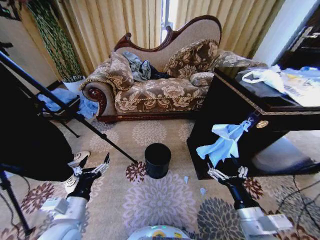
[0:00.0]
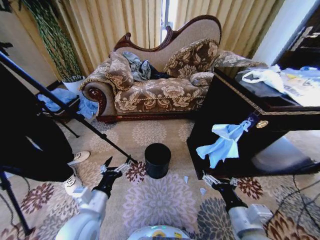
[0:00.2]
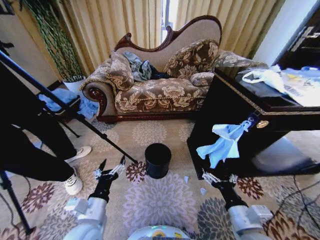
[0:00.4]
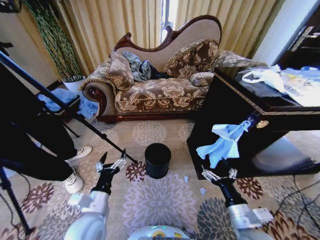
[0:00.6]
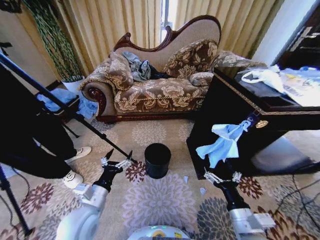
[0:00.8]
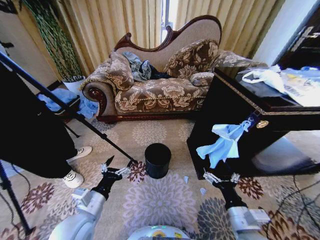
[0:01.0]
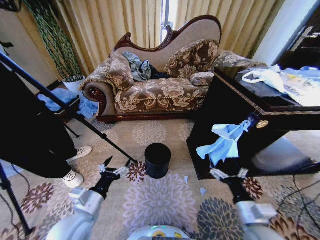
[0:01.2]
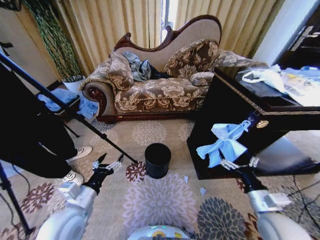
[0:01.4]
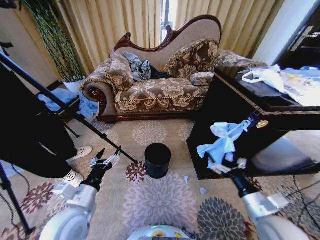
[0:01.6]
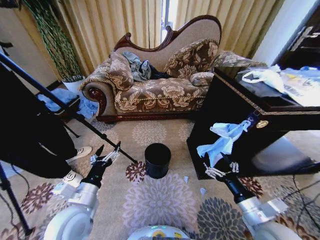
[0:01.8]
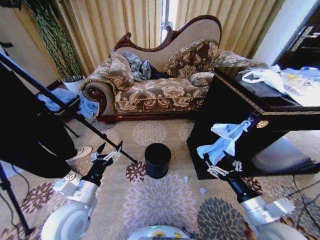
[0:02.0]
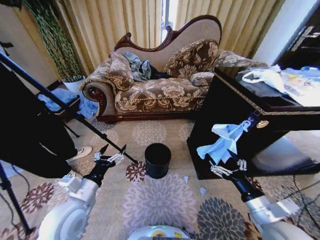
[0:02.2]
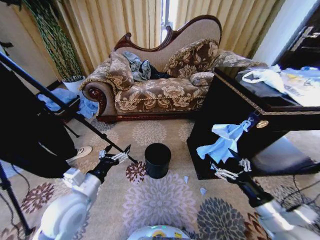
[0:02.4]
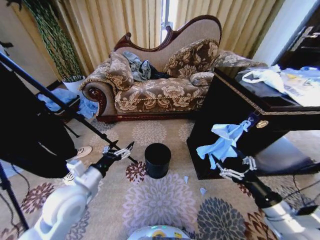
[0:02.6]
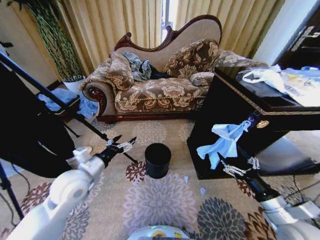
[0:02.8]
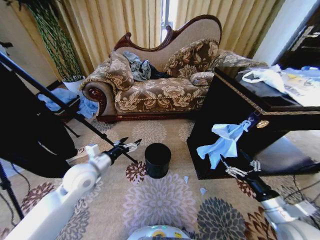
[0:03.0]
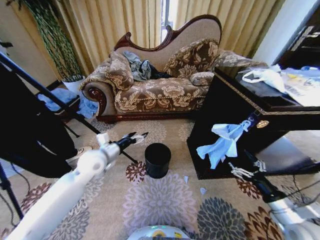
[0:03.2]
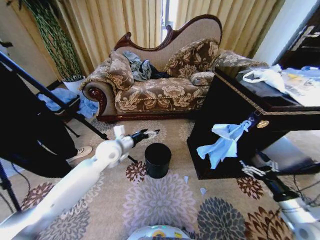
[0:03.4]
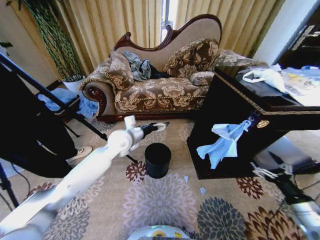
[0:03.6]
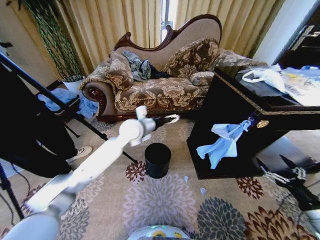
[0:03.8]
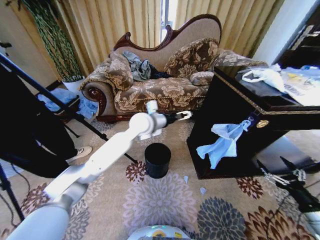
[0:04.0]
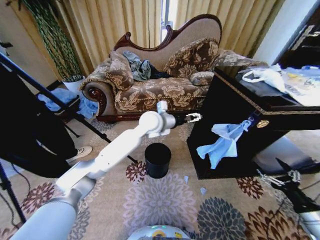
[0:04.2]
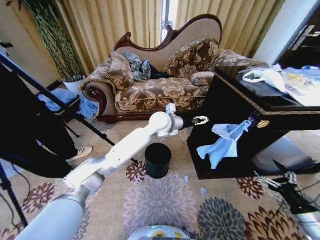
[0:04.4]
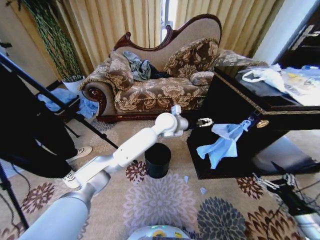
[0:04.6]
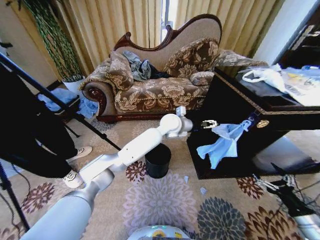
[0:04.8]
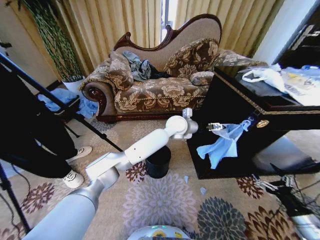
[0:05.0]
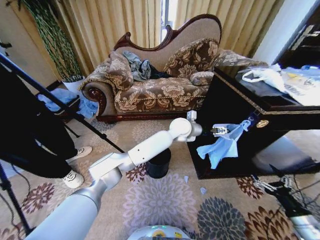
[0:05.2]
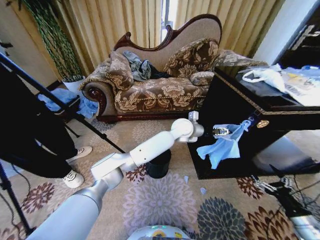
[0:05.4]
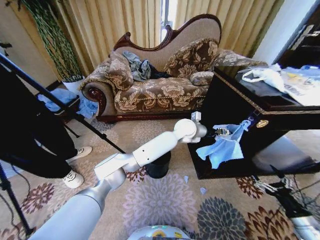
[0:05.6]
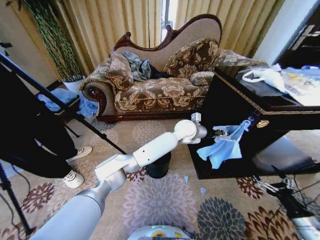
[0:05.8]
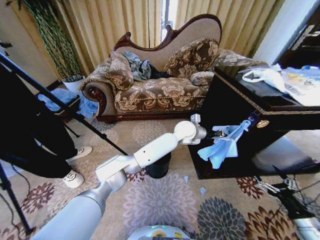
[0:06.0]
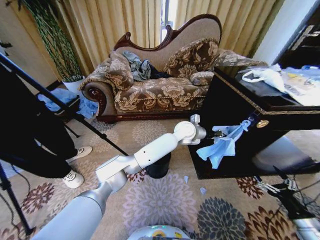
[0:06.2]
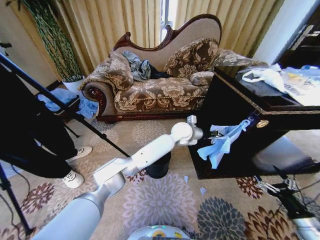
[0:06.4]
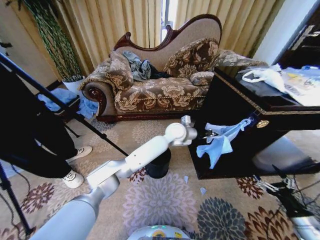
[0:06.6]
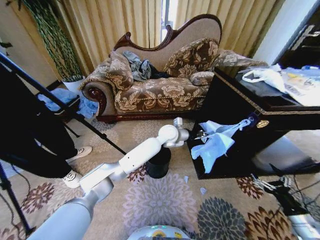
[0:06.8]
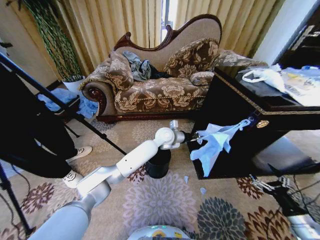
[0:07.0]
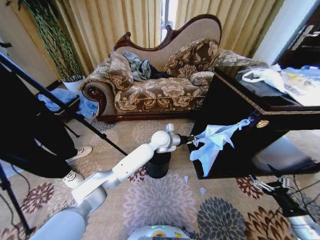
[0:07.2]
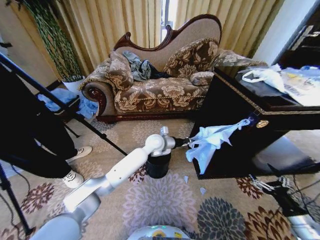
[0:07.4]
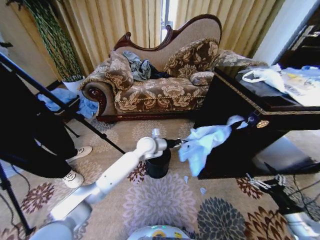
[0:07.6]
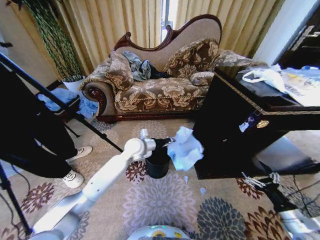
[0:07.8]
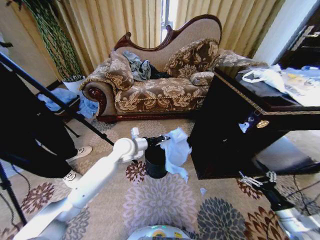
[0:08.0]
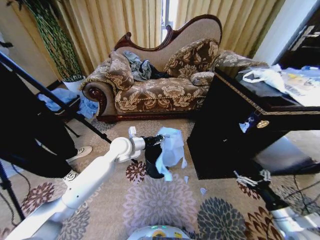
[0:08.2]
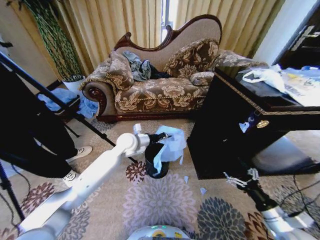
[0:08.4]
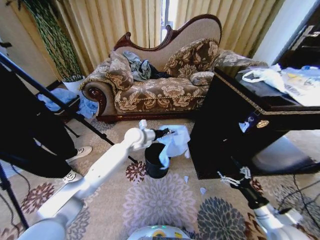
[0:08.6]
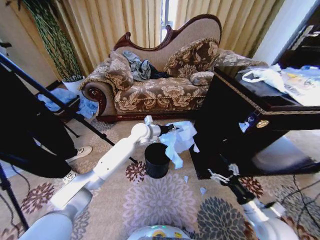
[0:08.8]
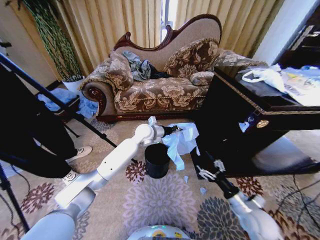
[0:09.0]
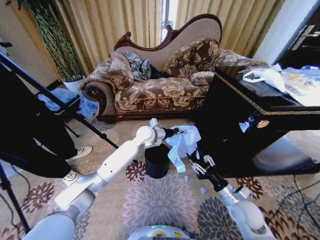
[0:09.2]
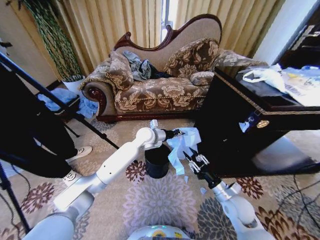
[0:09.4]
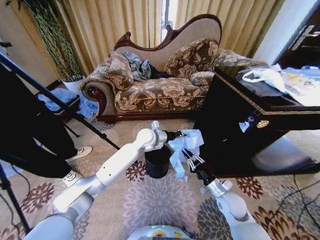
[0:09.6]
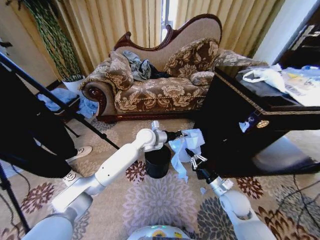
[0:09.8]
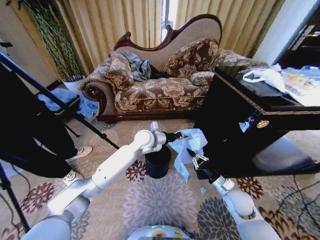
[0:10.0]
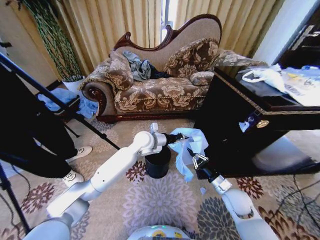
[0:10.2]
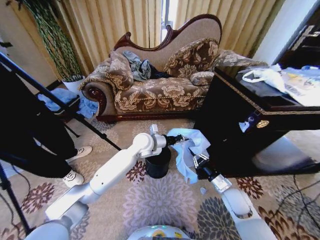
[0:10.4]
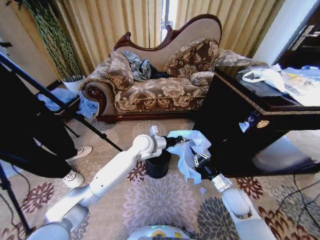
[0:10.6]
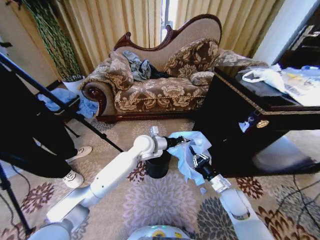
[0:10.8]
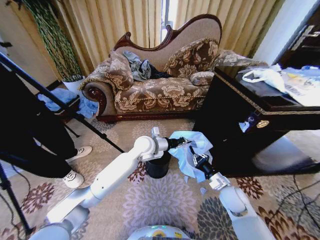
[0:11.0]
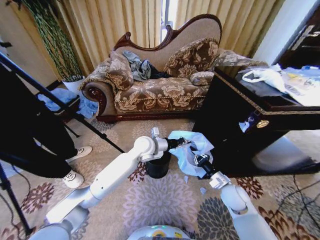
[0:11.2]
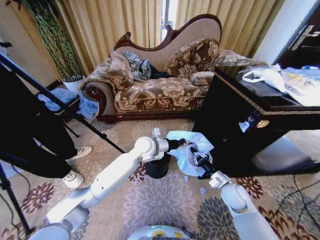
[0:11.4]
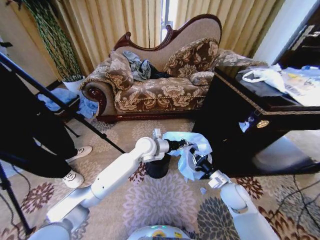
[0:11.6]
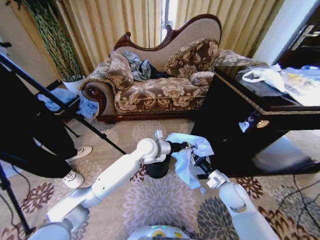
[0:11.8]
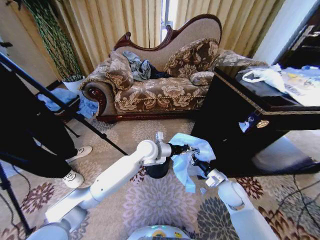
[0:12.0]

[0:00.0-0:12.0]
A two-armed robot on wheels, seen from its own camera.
Task of the whole recording: Place a garbage bag over the trash bin.
1.6 to 3.0 s: The right gripper shifts some 5 cm to the right, while the left gripper is displaced forward by about 15 cm.
3.0 to 4.4 s: The right gripper heads to the right, covering approximately 10 cm, while the left gripper moves to the right and forward, some 30 cm.
4.4 to 6.0 s: The left gripper is displaced to the right and downward by approximately 15 cm, and closes its fingers.
6.0 to 7.6 s: The left gripper goes some 20 cm to the left and downward.
7.6 to 9.0 s: The right gripper is displaced to the left and forward by about 15 cm; the left gripper shifts some 5 cm upward, and moves about 10 cm to the left and comes back.
9.0 to 10.4 s: The left gripper shifts some 5 cm backward. The right gripper moves forward, about 5 cm, and closes up.

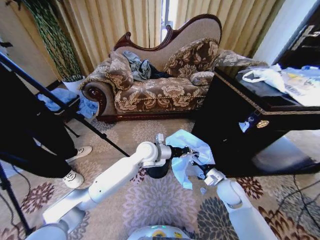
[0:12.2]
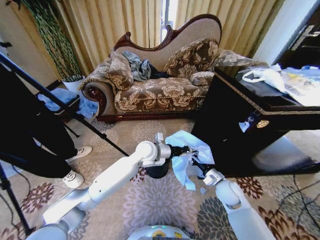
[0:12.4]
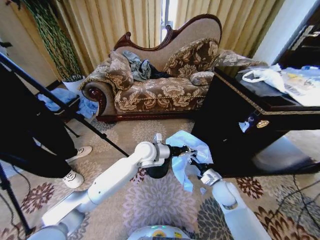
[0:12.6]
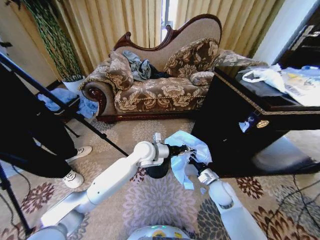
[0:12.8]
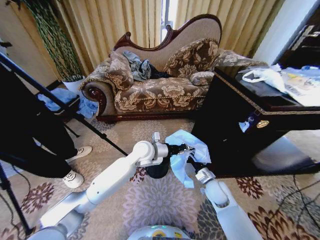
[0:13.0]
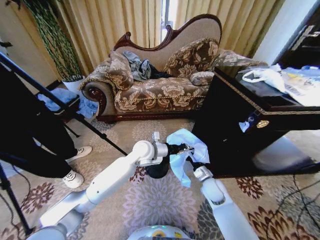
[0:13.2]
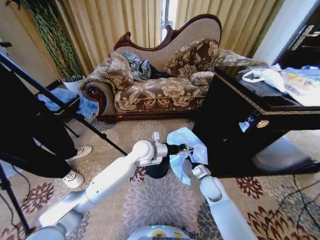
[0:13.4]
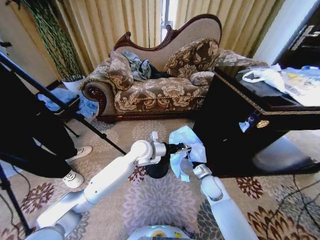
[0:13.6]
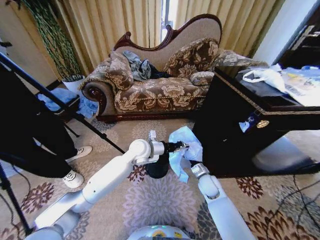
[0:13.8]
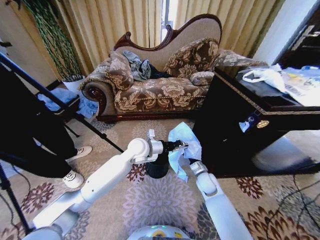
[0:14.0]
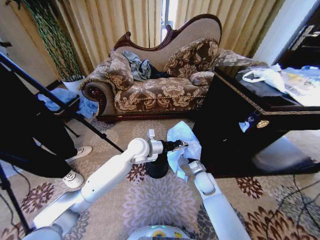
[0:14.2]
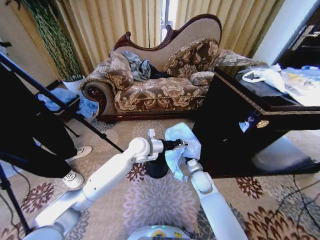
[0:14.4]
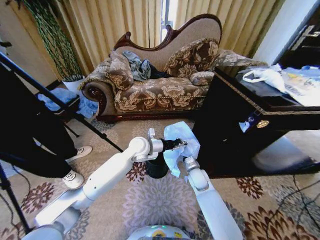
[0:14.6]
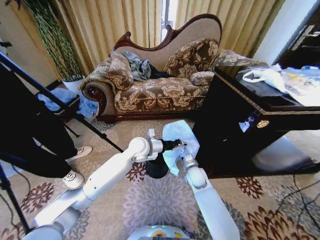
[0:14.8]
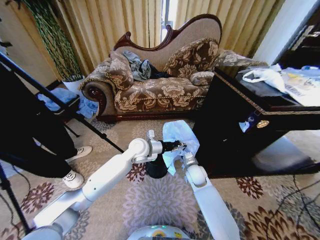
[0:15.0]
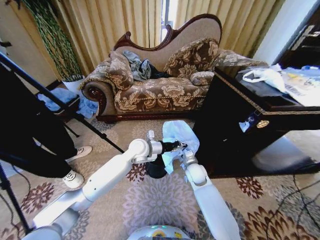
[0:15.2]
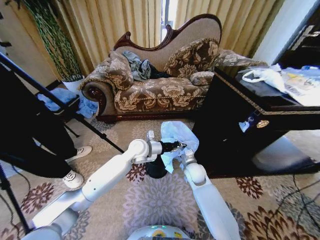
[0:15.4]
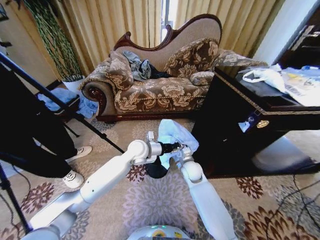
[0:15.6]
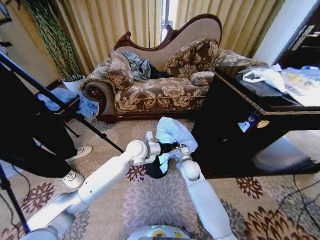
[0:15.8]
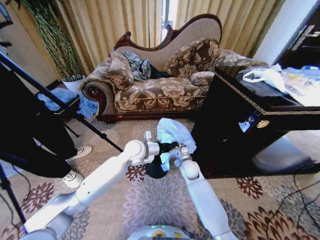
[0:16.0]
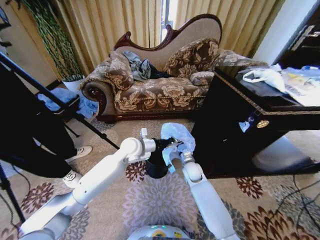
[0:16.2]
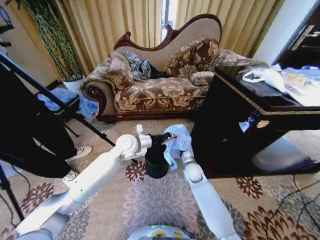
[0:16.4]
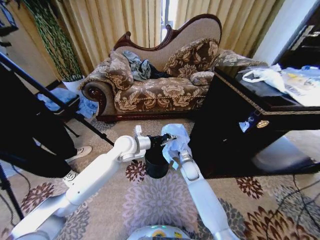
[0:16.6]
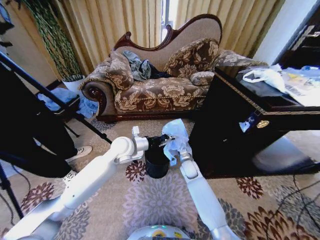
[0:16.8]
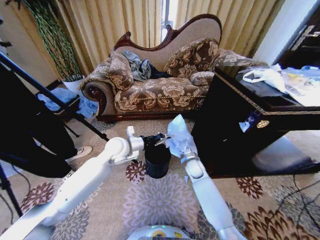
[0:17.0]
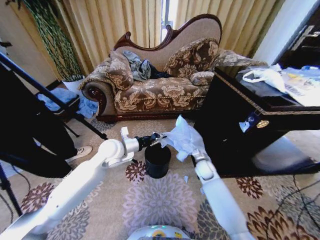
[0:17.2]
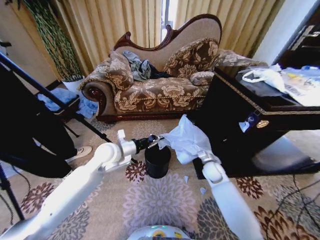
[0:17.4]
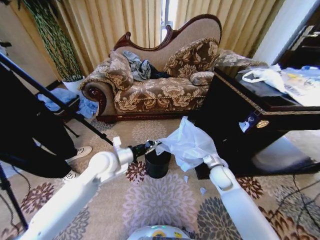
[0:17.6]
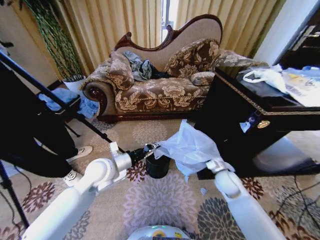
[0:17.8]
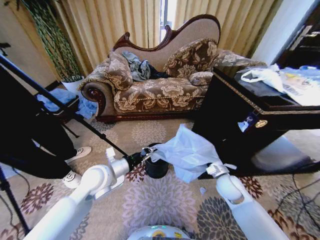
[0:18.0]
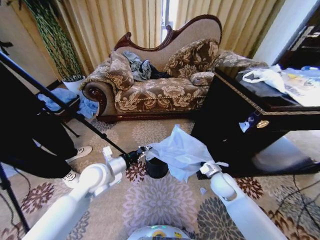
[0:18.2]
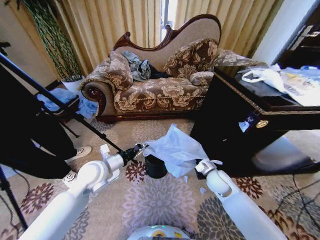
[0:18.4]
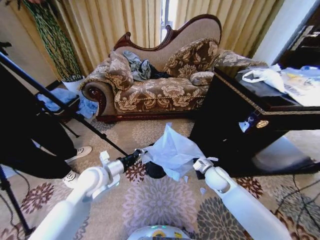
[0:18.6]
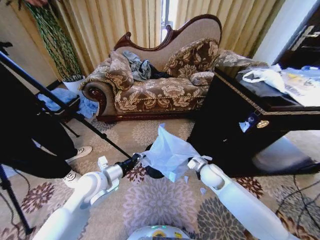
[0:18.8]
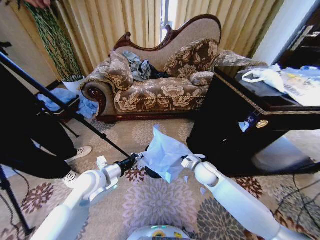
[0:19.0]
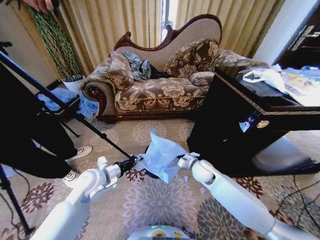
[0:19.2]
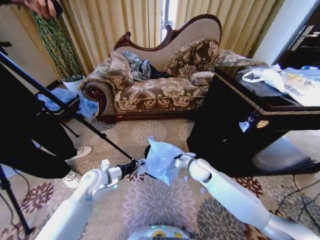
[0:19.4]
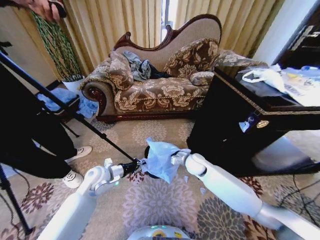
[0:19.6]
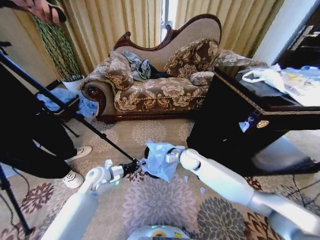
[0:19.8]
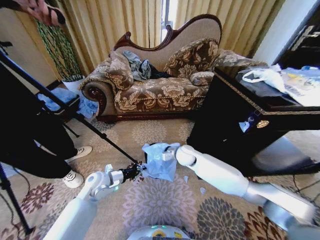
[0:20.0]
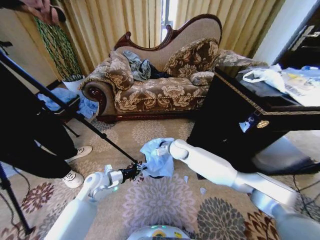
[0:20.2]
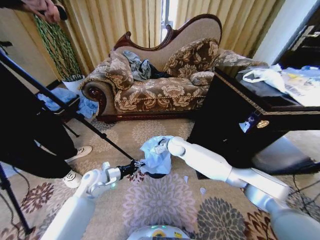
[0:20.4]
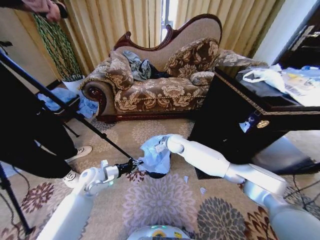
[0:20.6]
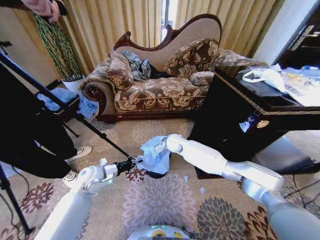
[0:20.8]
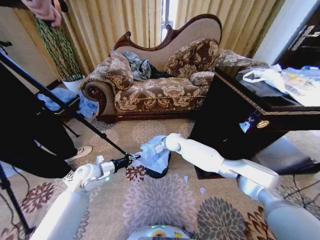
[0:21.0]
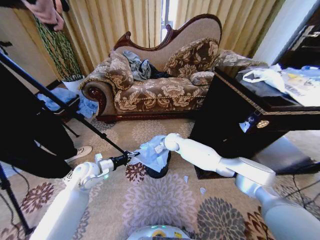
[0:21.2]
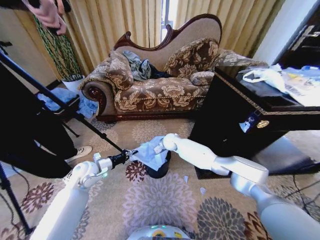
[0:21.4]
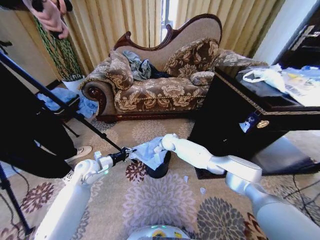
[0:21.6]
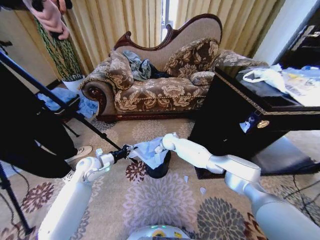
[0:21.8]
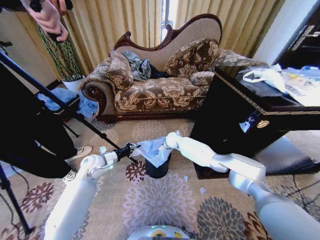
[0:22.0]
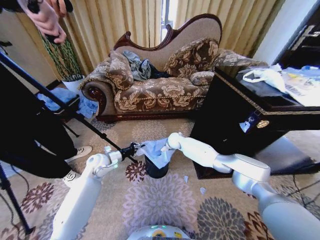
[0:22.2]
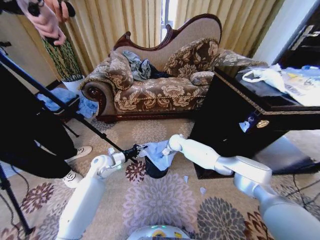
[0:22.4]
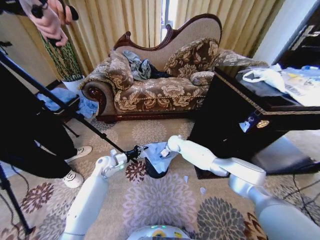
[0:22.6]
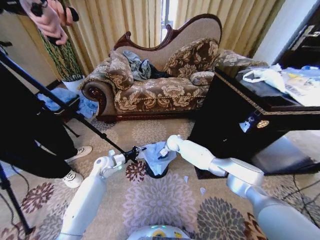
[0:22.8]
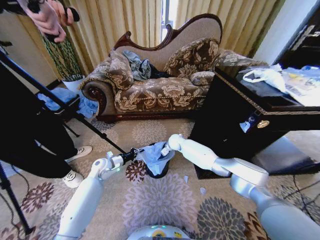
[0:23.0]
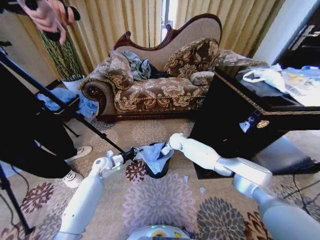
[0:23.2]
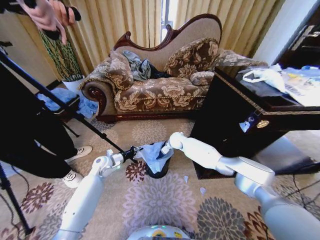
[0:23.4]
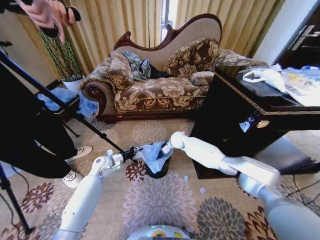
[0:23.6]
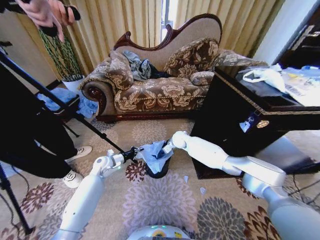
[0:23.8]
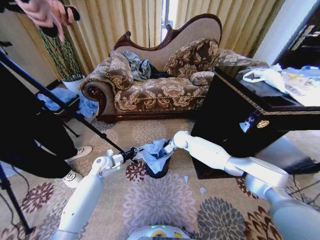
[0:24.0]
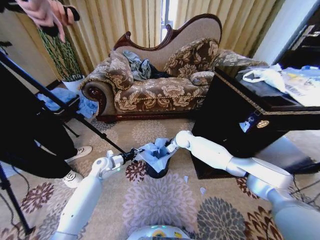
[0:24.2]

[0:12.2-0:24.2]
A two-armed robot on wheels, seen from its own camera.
Task of the whole recording: Place a garbage bag over the trash bin.
12.2 to 13.8 s: The right gripper moves to the left, roughly 5 cm.
13.8 to 15.2 s: The right gripper is displaced to the left by roughly 5 cm.
15.2 to 16.6 s: The right gripper changes place by roughly 5 cm. Meanwhile the left gripper moves to the left, roughly 5 cm.
16.6 to 18.2 s: The left gripper shifts some 15 cm backward and to the left. Meanwhile the right gripper shifts about 15 cm to the right, backward and upward.
18.2 to 19.8 s: The right gripper travels to the left and forward by roughly 15 cm. Meanwhile the left gripper moves downward, roughly 10 cm.
19.8 to 21.2 s: The right gripper moves forward and to the left, about 15 cm; the left gripper changes place by some 5 cm.
21.2 to 22.6 s: The left gripper heads forward and downward, covering about 10 cm. The right gripper changes place by roughly 5 cm.
22.6 to 24.2 s: The right gripper shifts approximately 5 cm upward, and opens.
